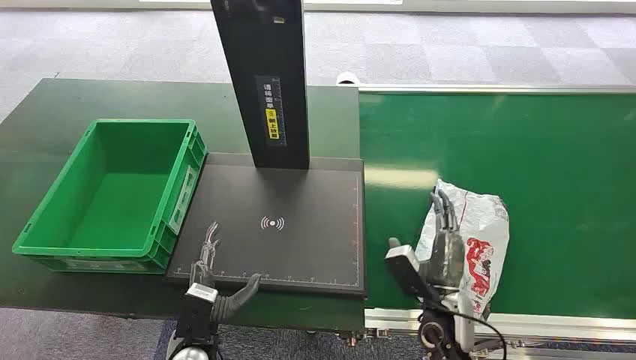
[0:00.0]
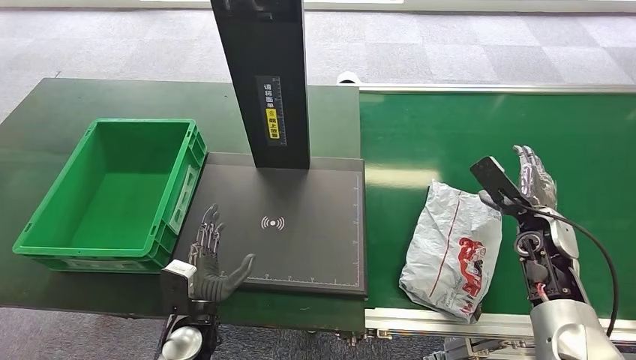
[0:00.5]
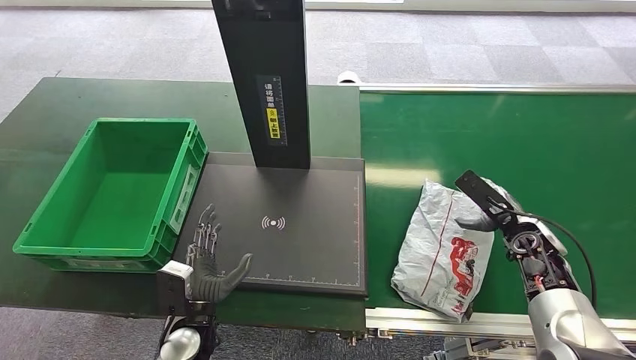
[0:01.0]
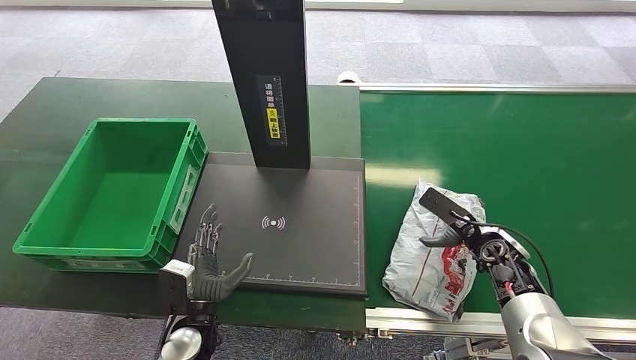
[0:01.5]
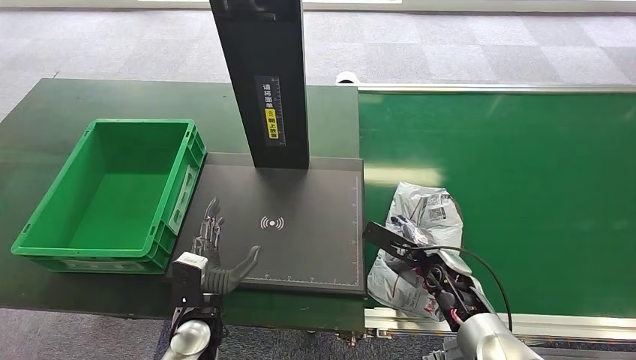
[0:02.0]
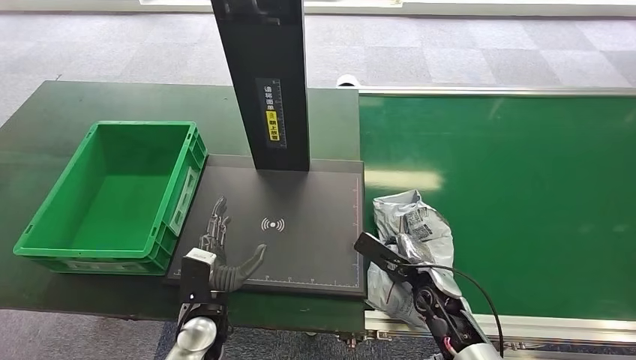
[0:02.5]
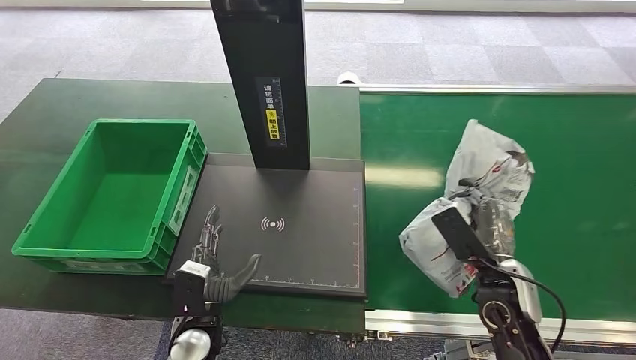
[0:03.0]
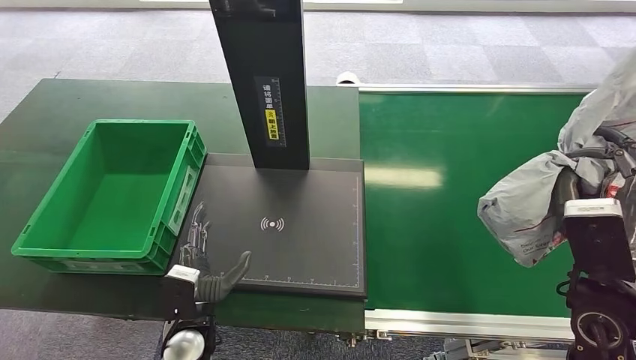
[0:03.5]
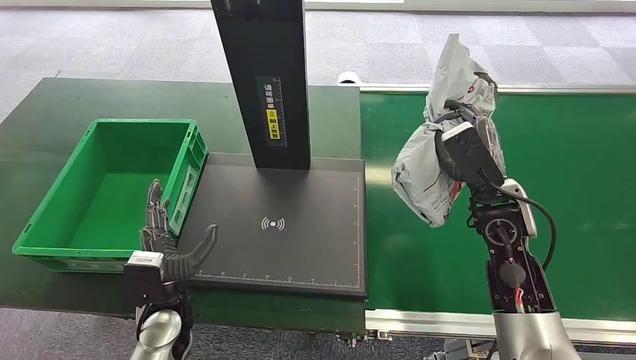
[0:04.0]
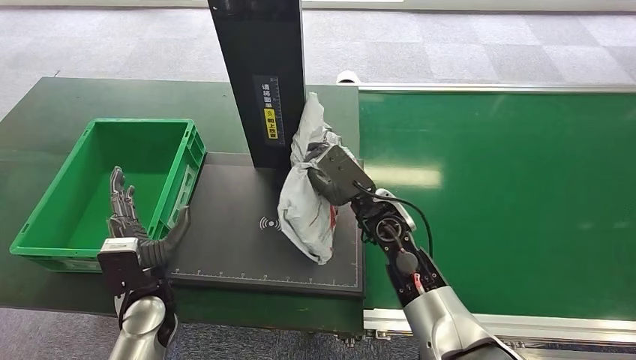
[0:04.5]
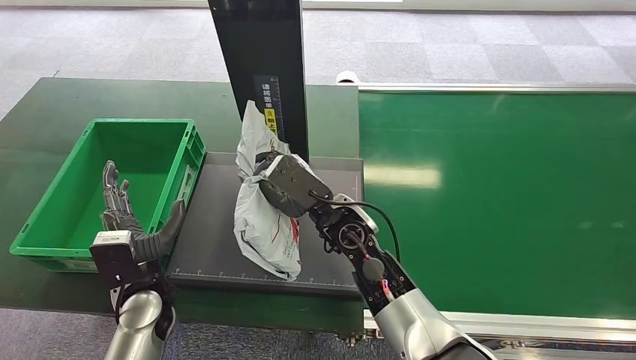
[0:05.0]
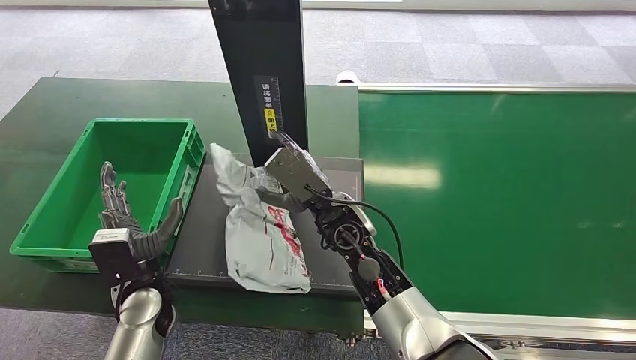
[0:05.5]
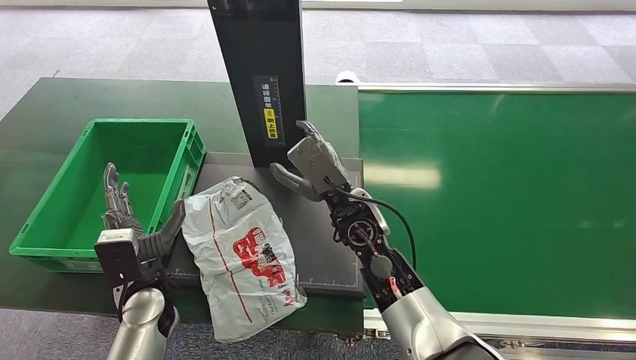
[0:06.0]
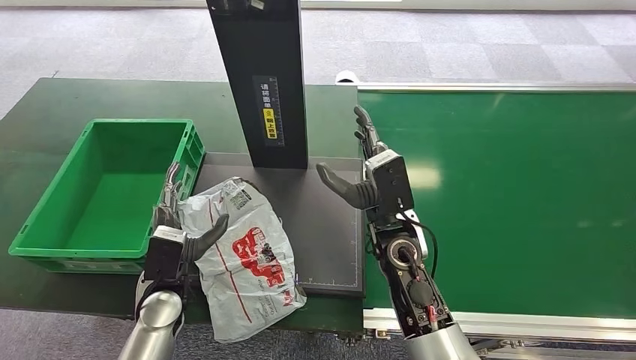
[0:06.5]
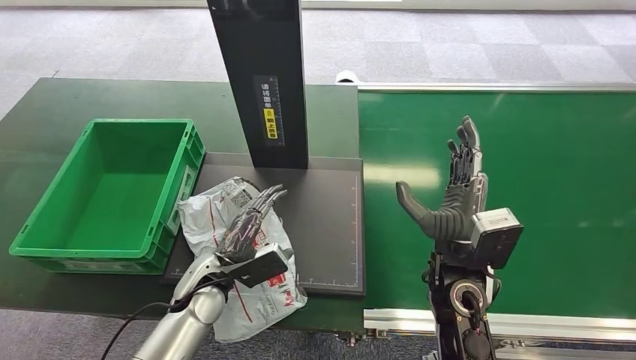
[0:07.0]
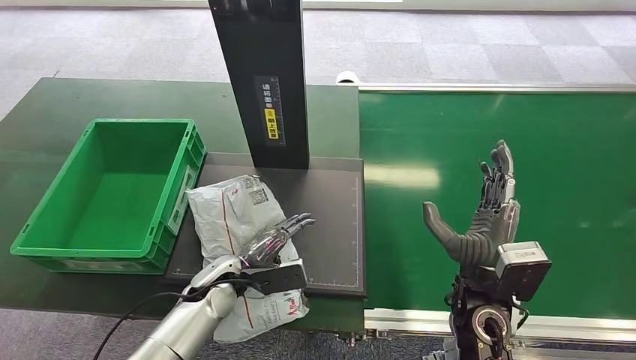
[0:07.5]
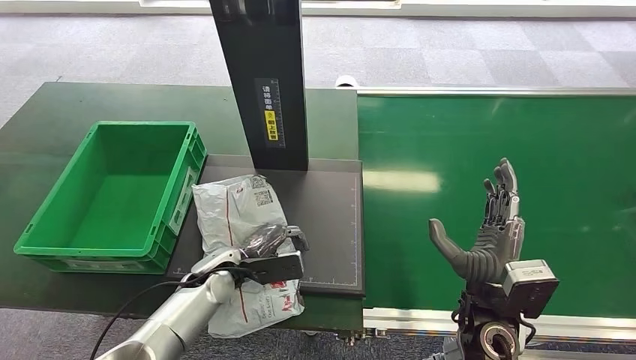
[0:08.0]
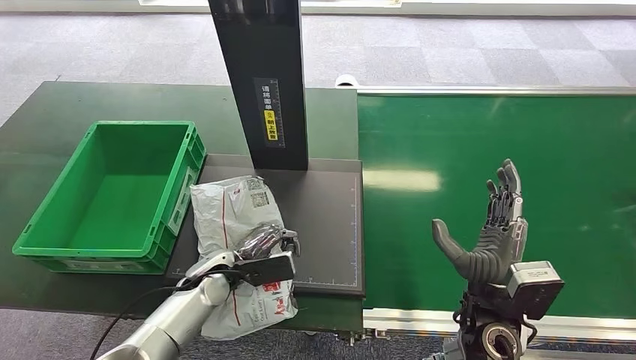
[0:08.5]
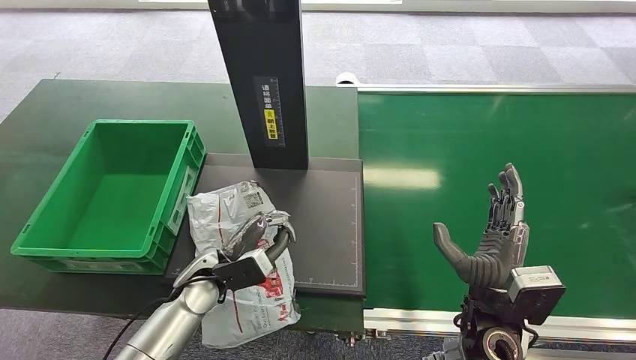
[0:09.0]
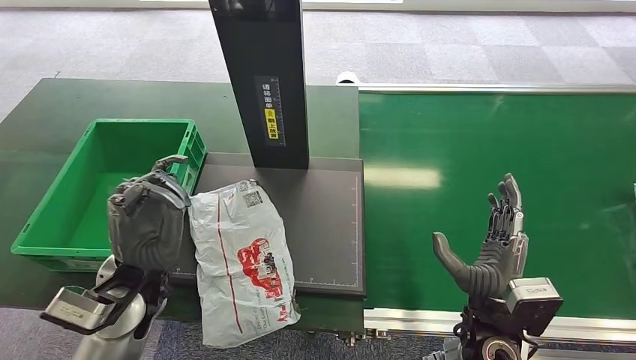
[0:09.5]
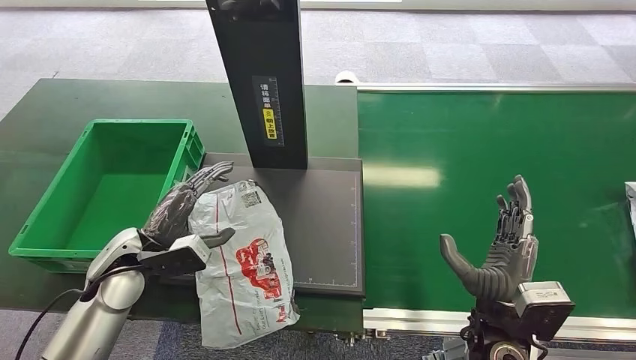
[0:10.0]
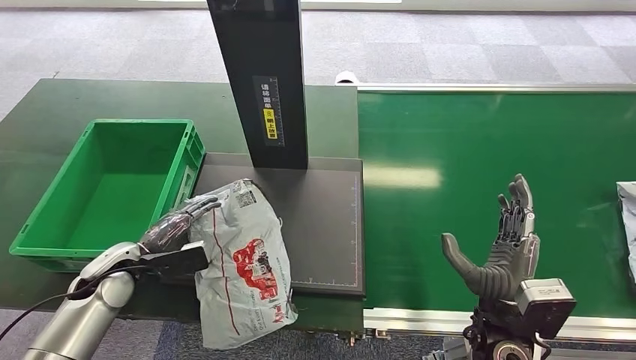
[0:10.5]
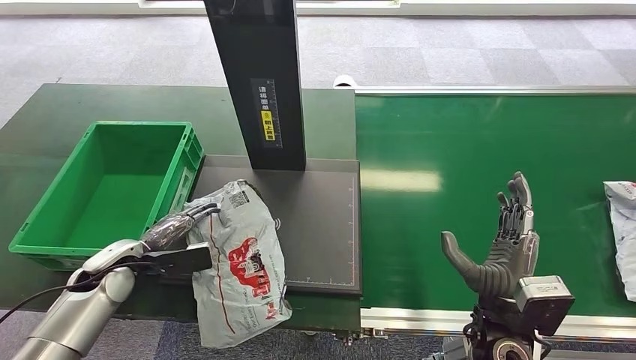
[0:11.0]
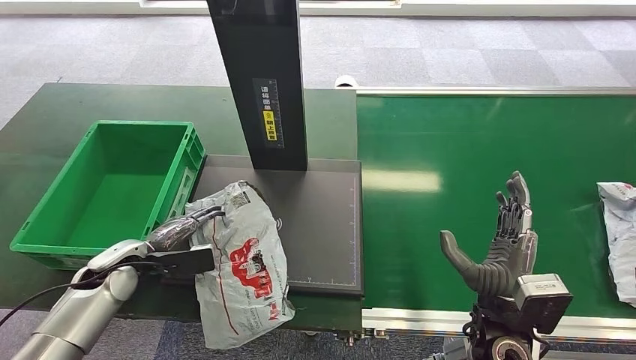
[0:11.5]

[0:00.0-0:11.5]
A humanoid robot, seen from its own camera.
Step, 0:00.0 to 0:03.0: Pick up the package from the conveyor belt.
Step, 0:03.5 to 0:06.5: Place the package onto the inbound machine.
0:02.0 to 0:04.0: The left hand shifts by roughly 5 cm. Meanwhile the right hand is displaced upward by roughly 20 cm.
0:06.0 to 0:07.5: The right hand goes some 20 cm to the right and backward; the left hand heads to the right, covering roughly 10 cm.
0:07.5 to 0:09.5: The left hand is displaced upward and to the left by some 15 cm; the right hand shifts by roughly 5 cm.

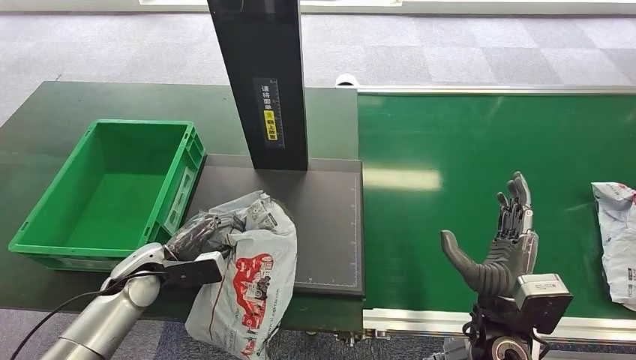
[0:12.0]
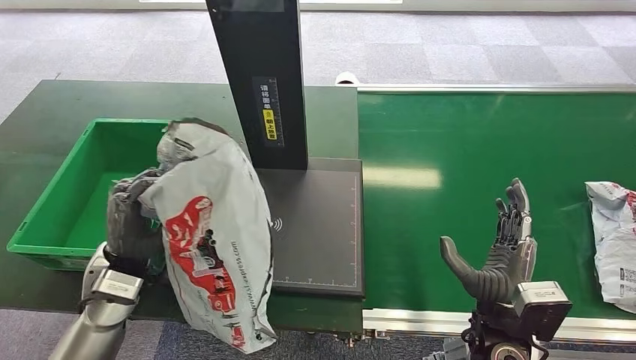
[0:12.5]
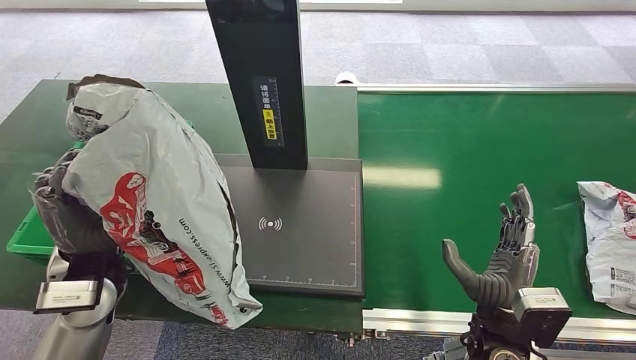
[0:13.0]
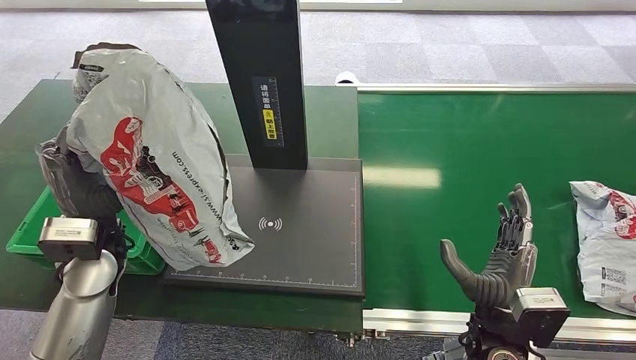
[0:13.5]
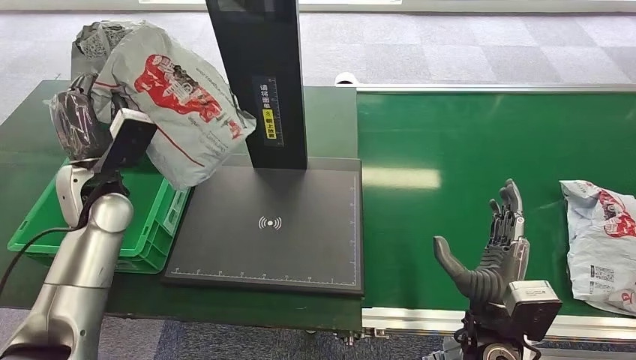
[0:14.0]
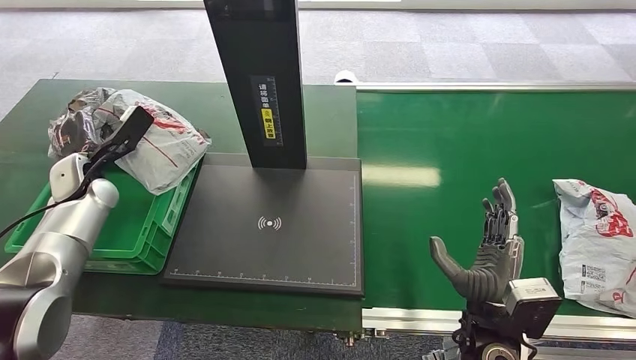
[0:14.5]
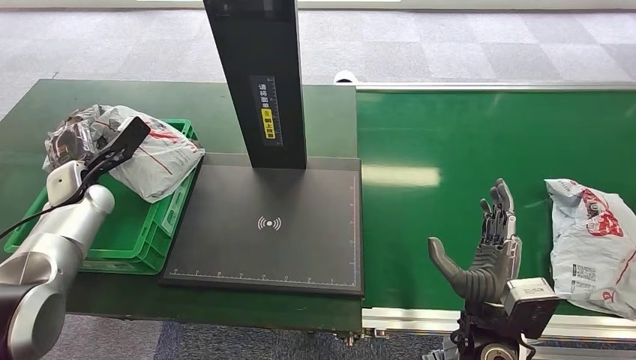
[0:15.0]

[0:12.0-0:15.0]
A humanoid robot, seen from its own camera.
Step, 0:14.0 to 0:15.0: Place the package into the parcel locker.

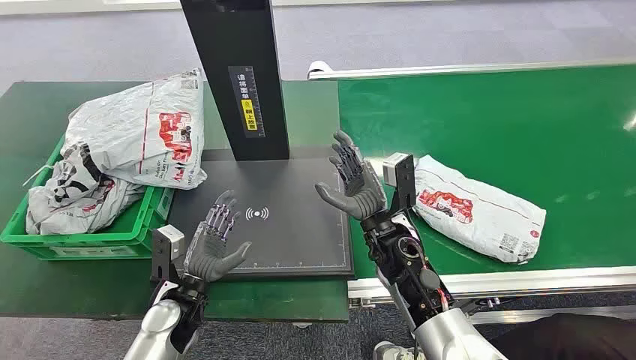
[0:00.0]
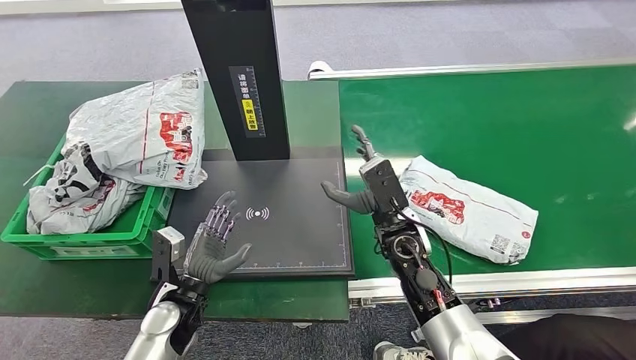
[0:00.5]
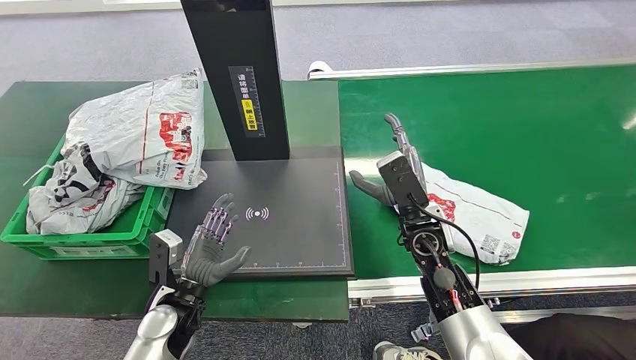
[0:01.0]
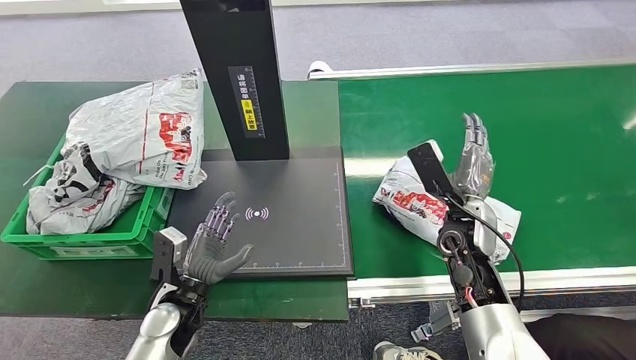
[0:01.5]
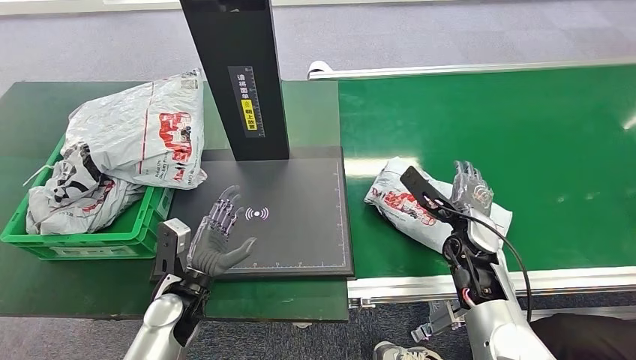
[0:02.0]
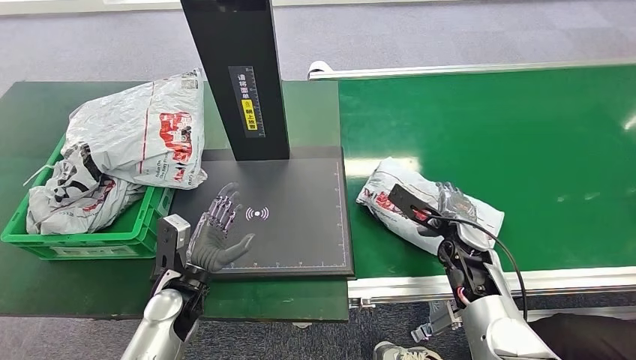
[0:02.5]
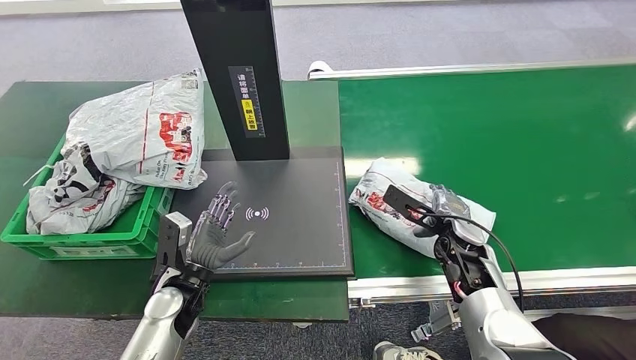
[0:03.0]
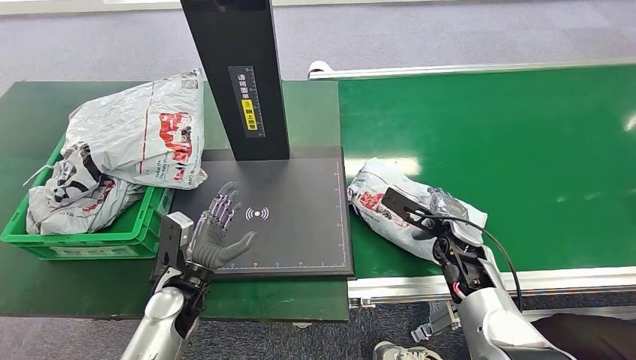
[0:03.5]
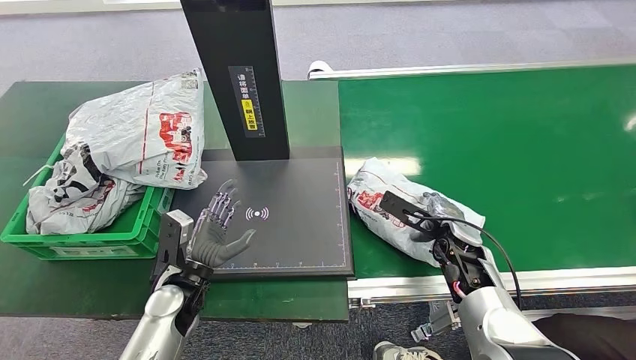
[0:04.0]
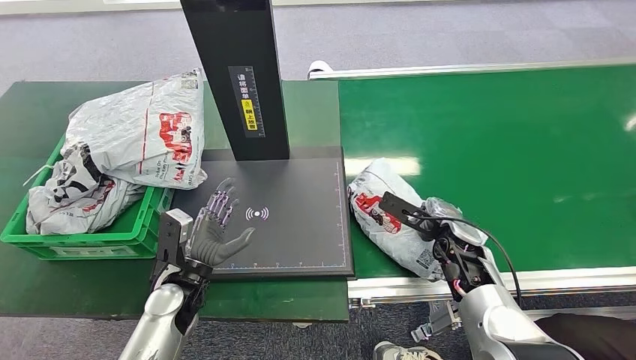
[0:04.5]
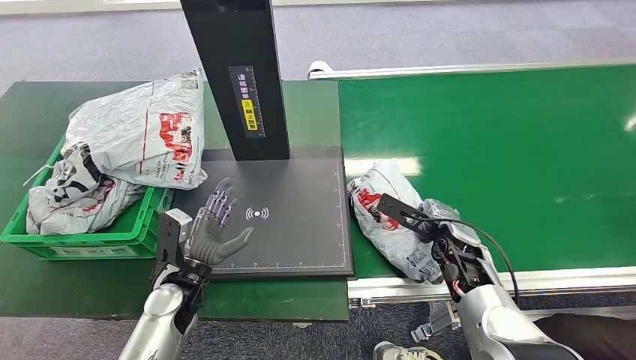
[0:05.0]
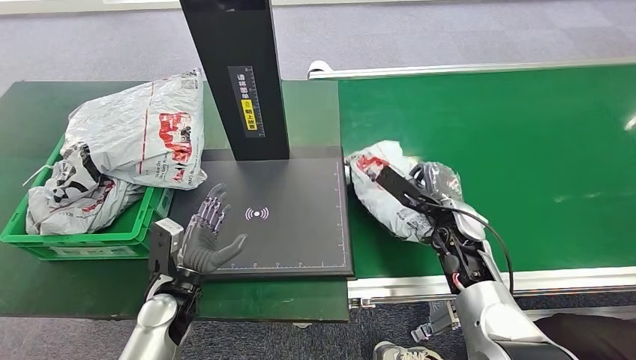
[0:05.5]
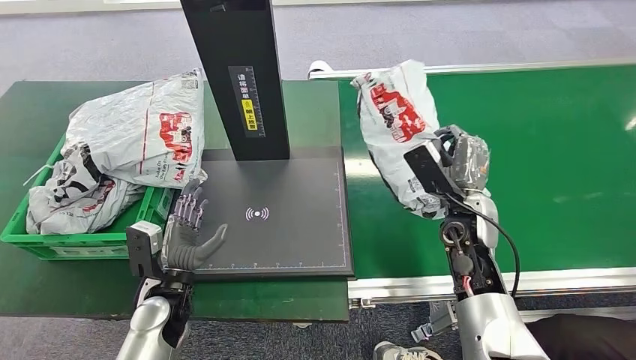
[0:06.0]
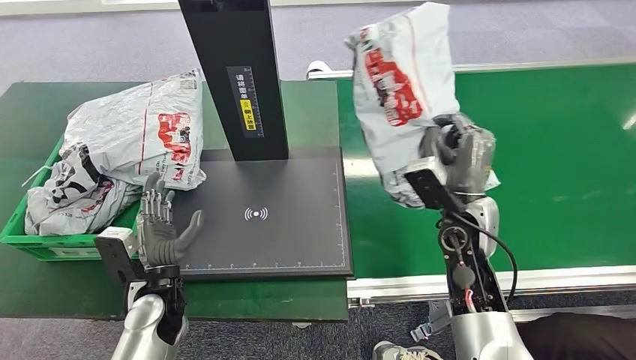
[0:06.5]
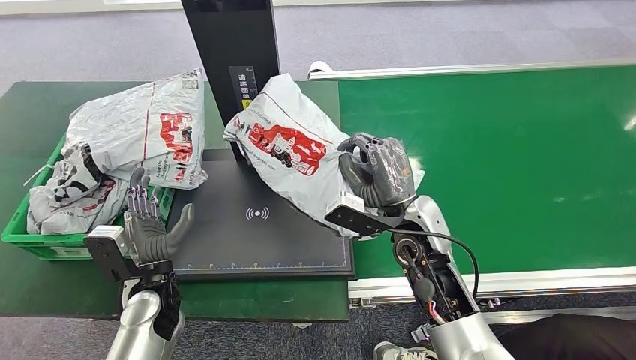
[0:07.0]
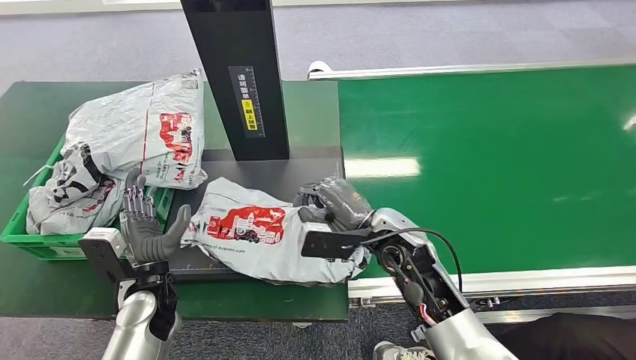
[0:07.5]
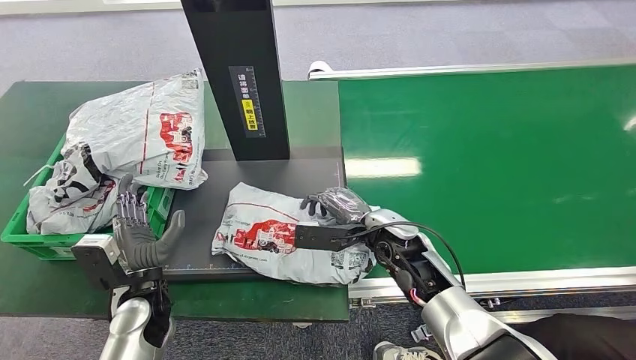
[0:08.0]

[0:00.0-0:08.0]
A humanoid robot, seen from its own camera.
Step, 0:00.0 to 0:06.5: Pick up the package from the conveyor belt.
0:04.0 to 0:06.0: The right hand goes about 5 cm upward.
